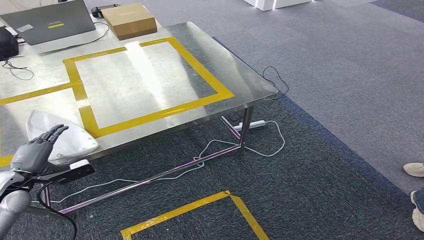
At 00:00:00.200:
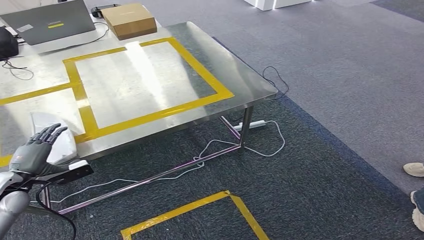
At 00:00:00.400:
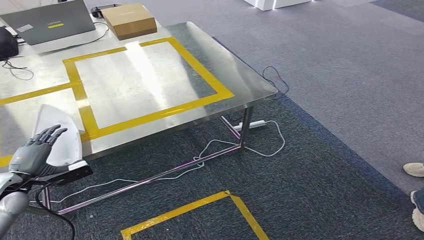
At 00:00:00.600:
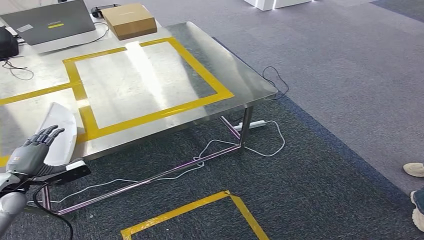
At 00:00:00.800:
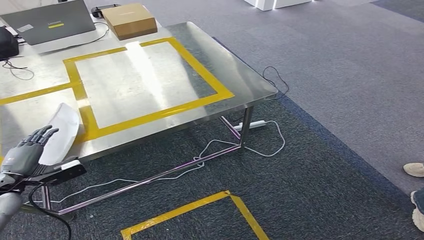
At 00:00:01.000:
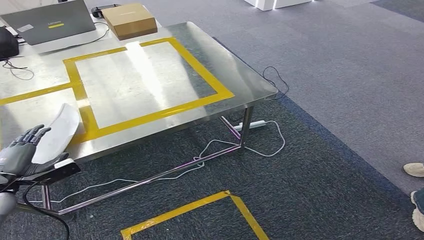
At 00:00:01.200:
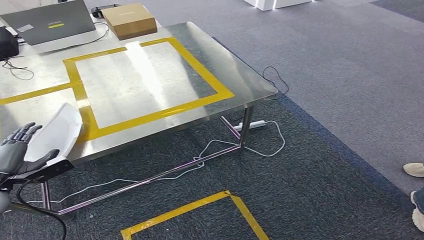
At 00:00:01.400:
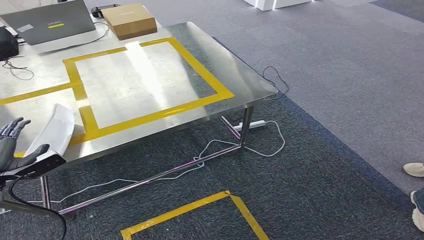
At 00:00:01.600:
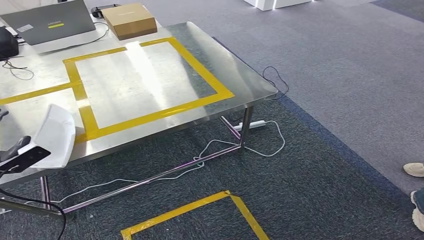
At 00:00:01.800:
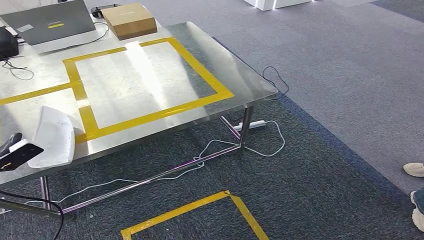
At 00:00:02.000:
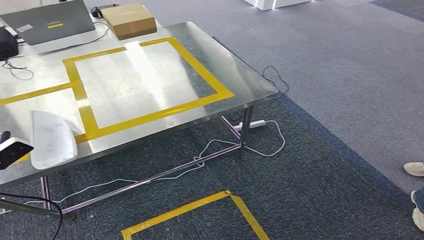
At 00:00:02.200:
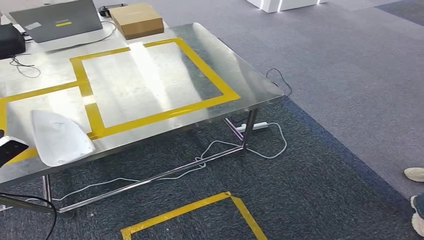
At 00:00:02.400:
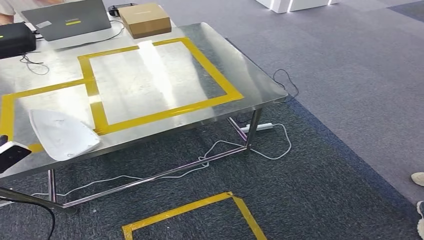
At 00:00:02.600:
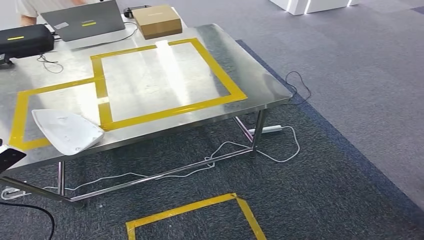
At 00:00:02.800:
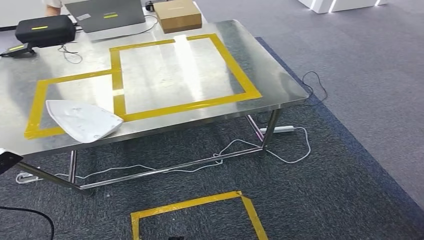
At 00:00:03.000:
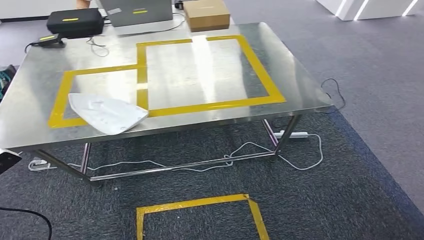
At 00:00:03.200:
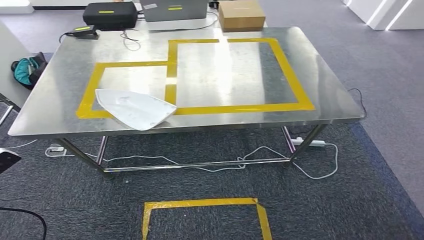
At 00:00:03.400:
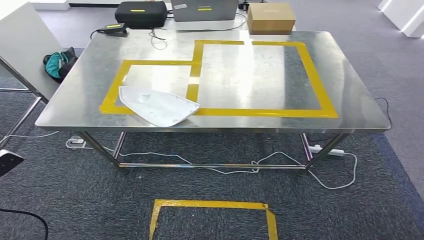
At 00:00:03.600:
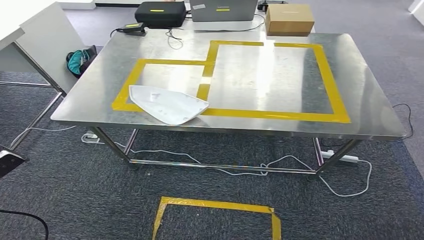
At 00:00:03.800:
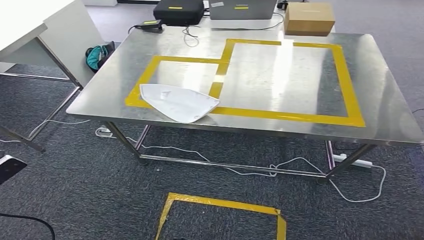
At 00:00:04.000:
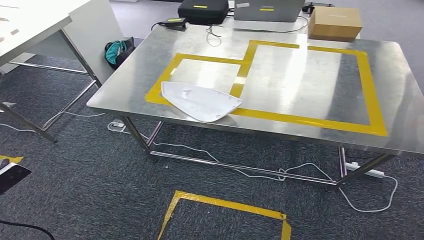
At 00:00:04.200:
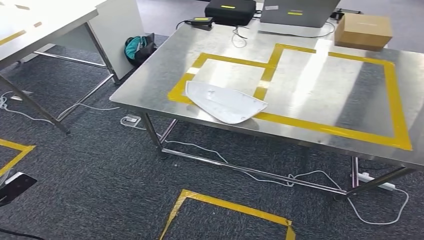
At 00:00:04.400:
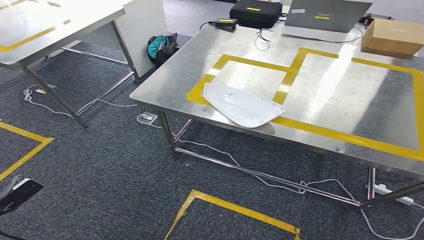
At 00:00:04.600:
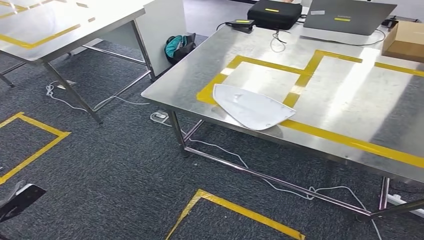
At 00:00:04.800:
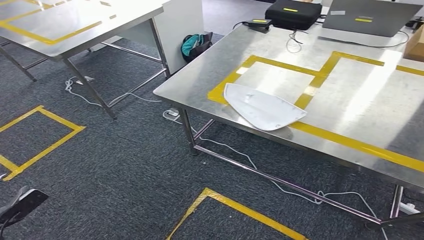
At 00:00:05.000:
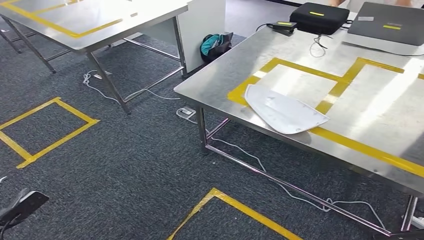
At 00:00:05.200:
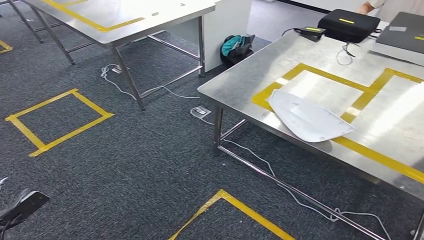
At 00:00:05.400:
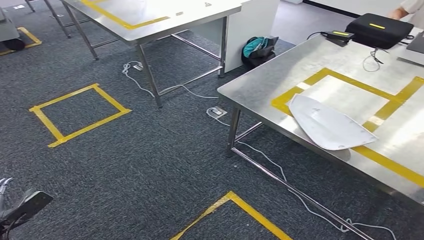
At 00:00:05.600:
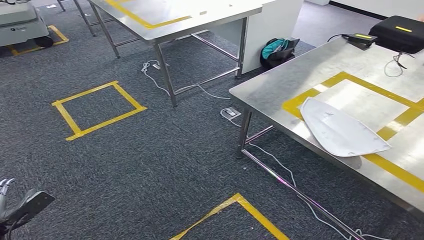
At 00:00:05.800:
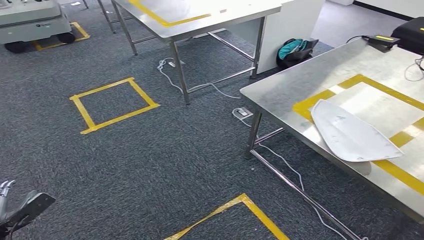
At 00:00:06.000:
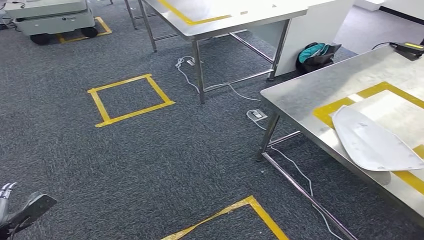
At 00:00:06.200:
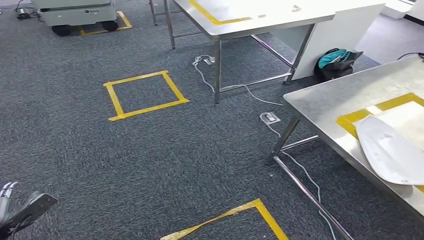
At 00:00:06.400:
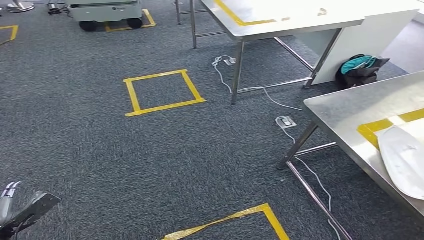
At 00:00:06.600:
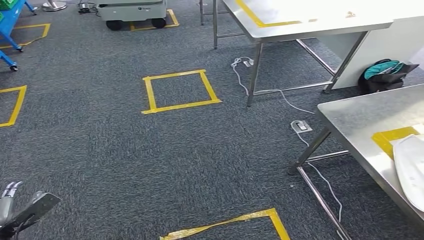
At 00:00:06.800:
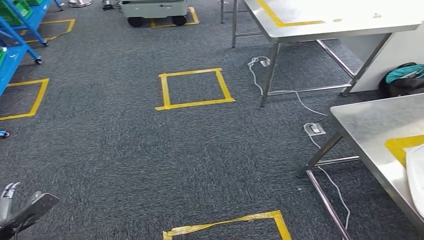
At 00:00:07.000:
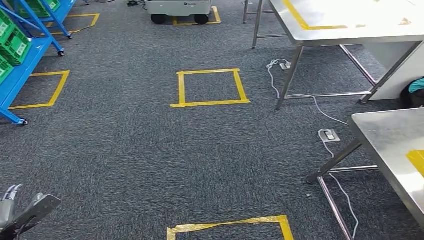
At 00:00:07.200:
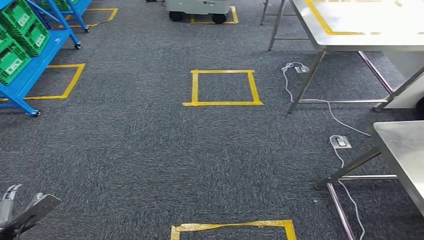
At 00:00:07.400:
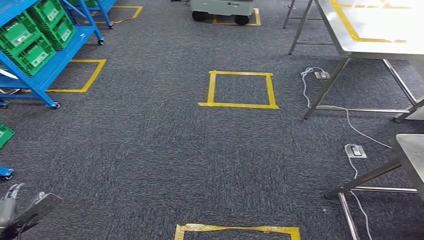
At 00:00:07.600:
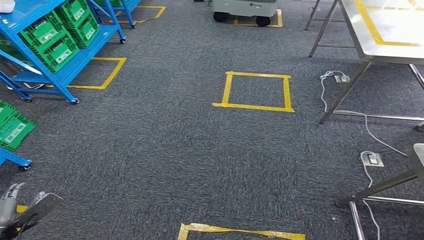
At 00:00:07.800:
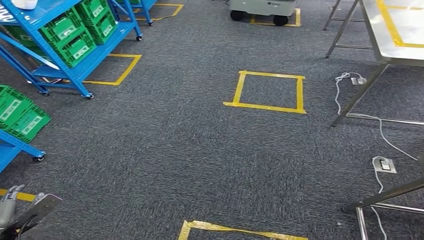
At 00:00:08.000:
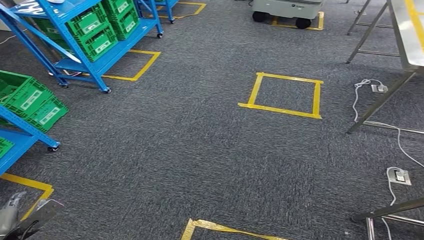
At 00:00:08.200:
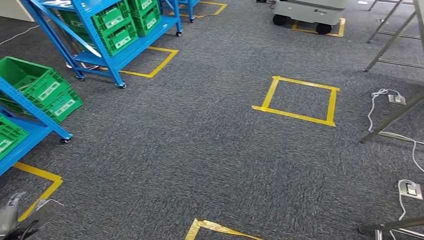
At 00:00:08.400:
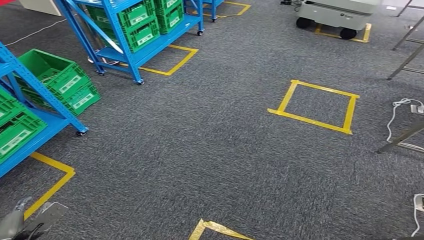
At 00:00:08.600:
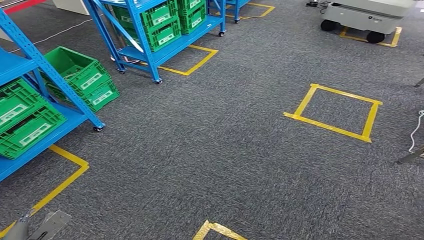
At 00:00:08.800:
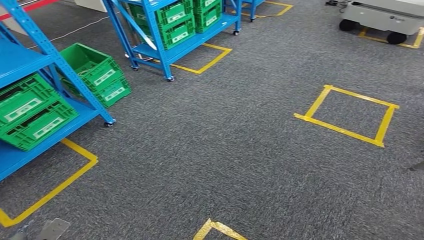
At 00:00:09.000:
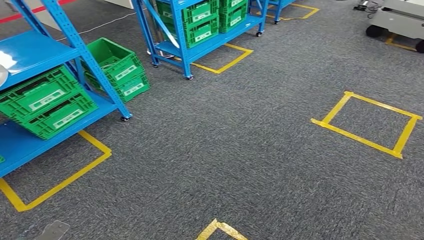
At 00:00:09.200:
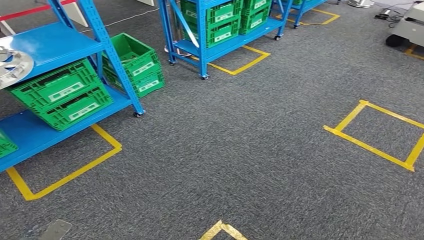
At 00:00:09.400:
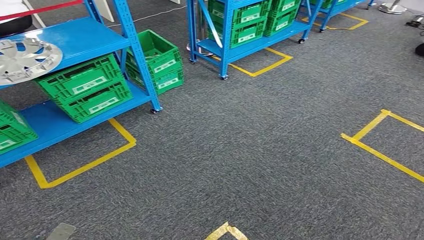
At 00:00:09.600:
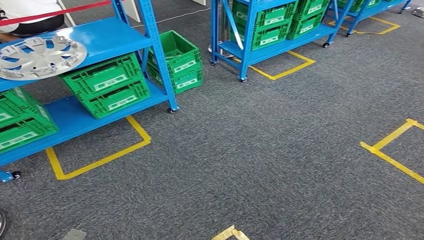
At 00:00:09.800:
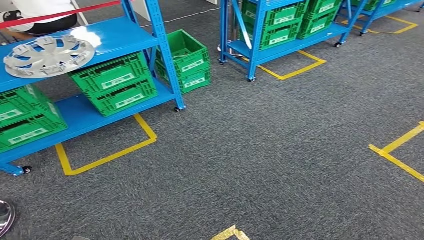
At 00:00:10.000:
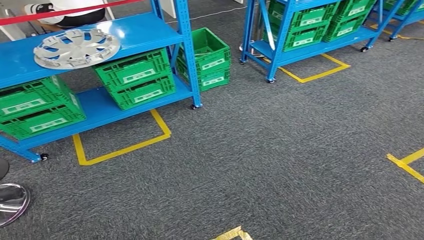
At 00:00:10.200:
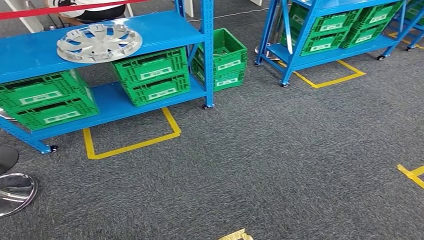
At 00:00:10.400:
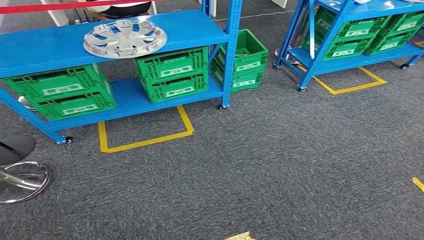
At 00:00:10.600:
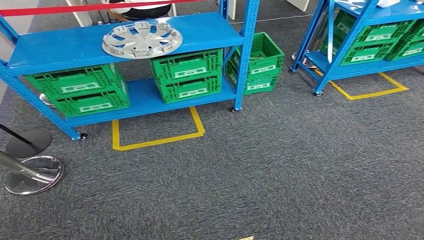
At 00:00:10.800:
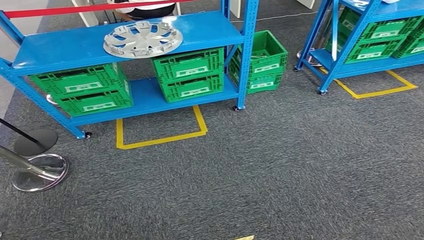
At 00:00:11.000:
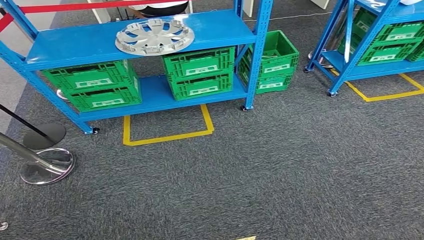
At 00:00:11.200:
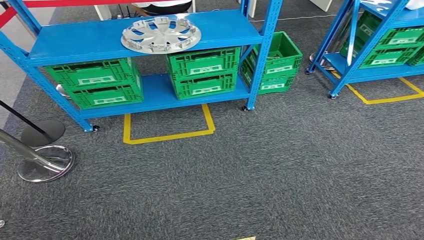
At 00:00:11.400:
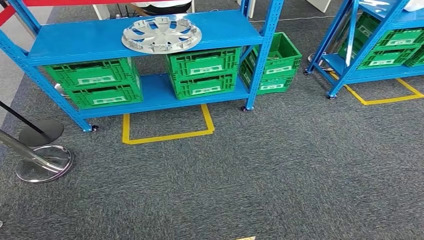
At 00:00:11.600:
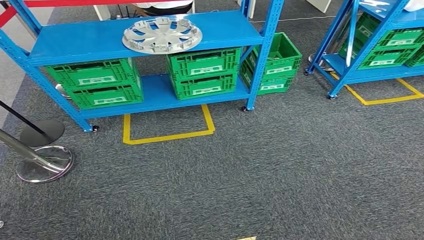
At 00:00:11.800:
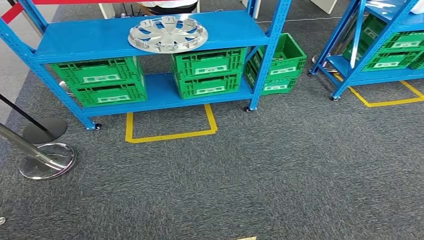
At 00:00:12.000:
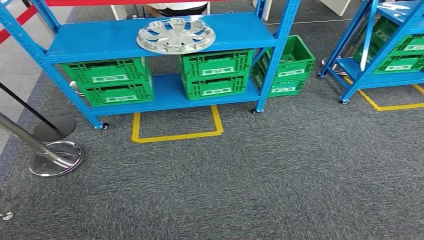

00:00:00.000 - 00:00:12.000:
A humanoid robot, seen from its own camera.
Step, 00:00:00.000 - 00:00:03.600: Insert the small parts into the corresponding holes on the workbench.
00:00:00.000 - 00:00:01.600: The left hand heads to the left, covering approximately 5 cm.

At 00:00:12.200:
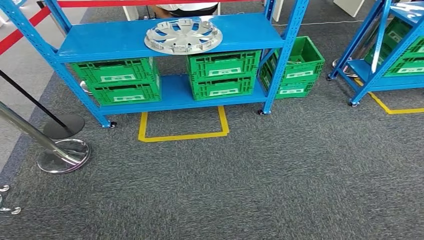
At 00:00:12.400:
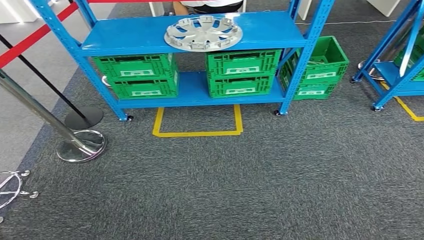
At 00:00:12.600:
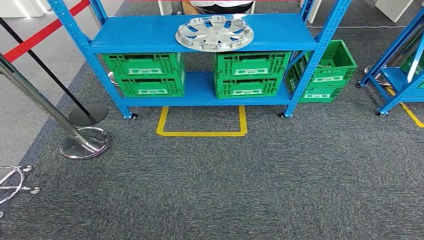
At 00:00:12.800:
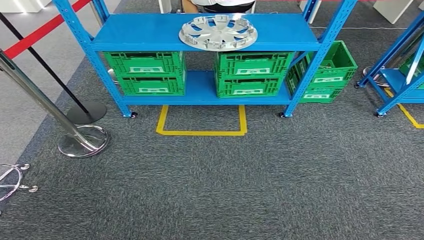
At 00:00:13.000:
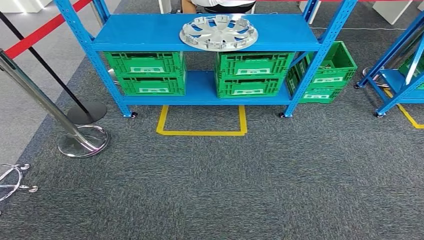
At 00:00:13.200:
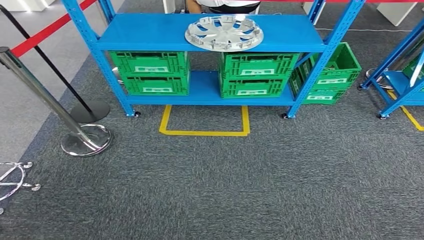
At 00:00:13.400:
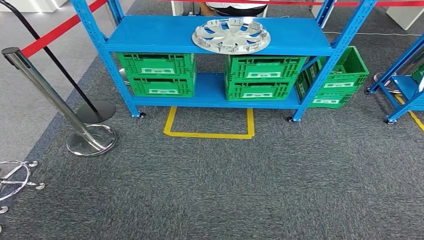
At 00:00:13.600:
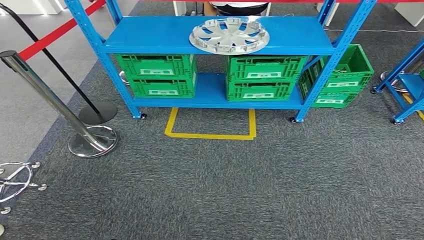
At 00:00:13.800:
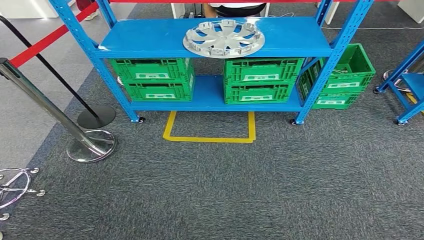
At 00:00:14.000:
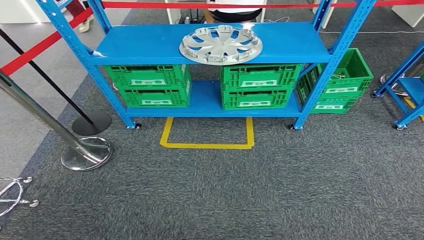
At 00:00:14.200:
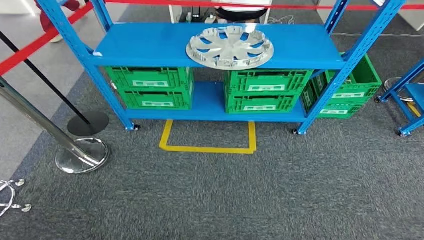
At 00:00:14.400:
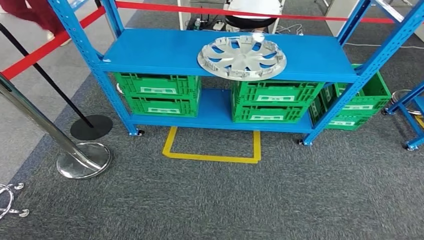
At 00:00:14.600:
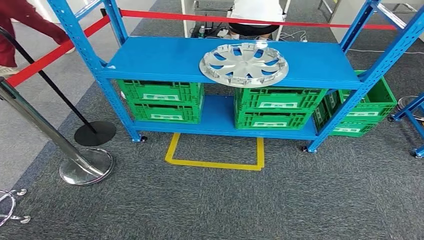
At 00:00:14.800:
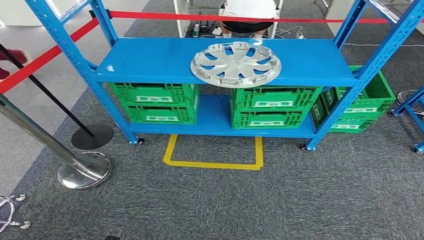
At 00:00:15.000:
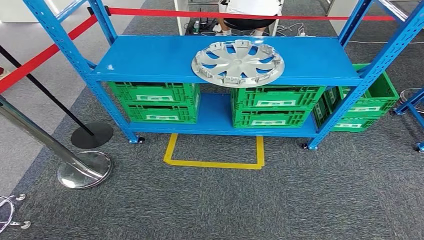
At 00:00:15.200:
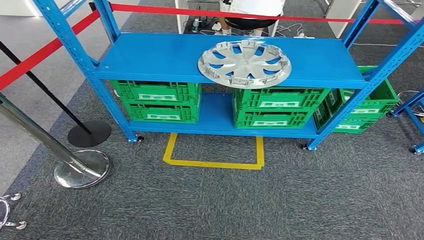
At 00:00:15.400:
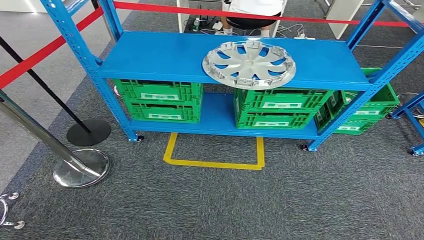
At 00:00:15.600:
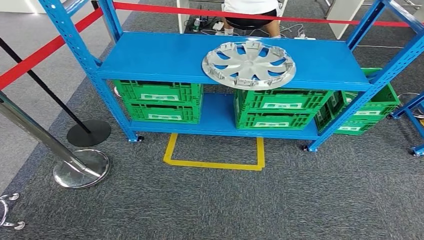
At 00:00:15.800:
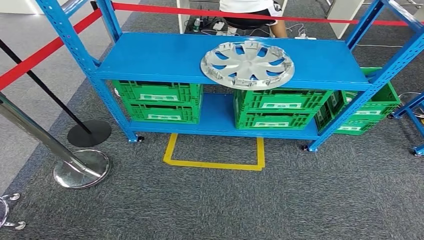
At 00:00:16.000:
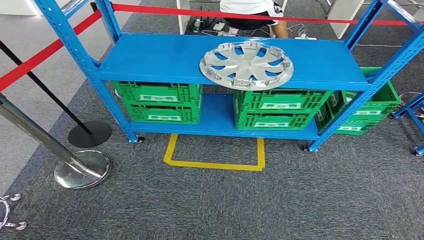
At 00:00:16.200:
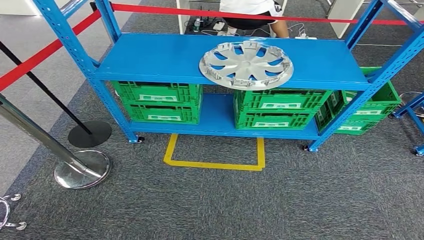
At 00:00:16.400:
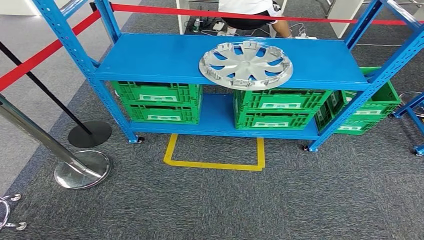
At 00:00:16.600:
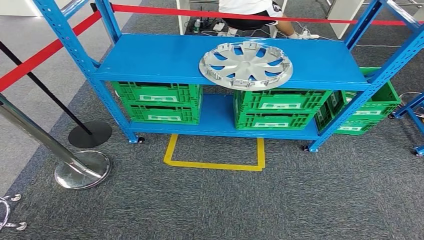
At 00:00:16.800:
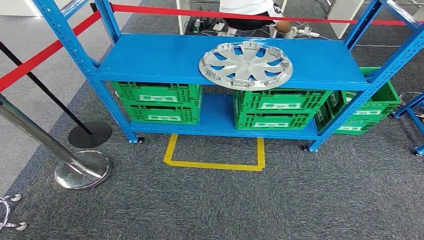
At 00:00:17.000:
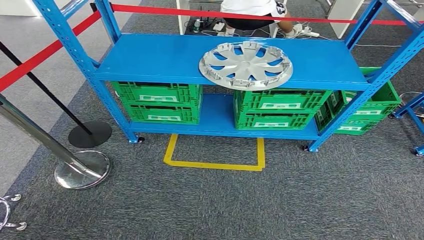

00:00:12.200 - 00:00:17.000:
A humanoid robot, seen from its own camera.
Step, 00:00:12.200 - 00:00:17.000: Move to the initial position of the workbench.
00:00:15.400 - 00:00:17.000: The right hand moves forward, some 20 cm.
